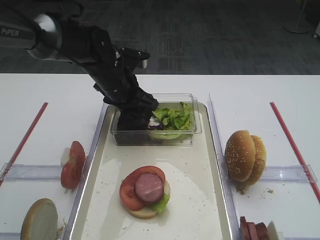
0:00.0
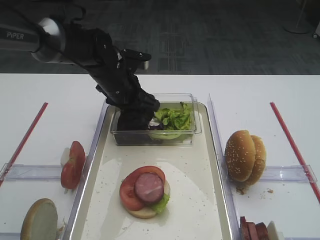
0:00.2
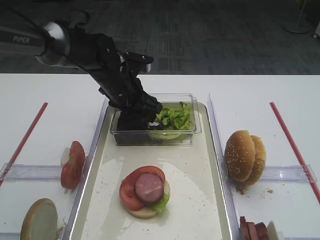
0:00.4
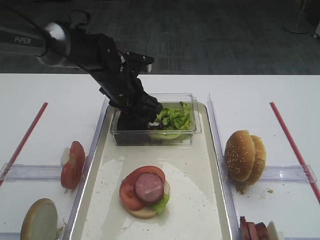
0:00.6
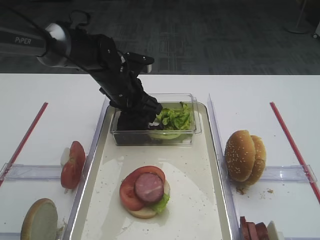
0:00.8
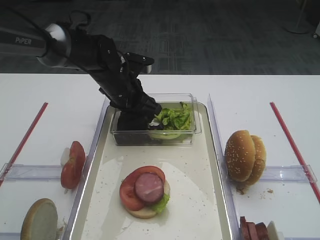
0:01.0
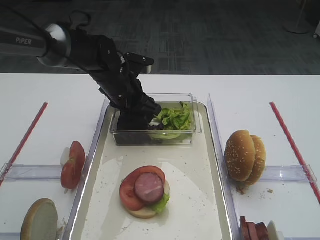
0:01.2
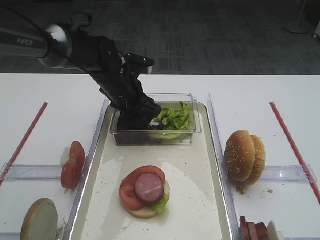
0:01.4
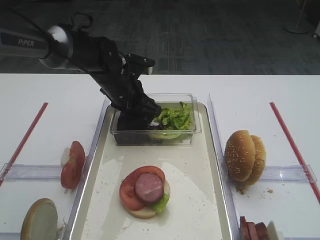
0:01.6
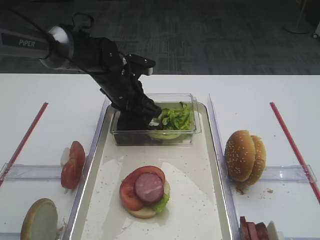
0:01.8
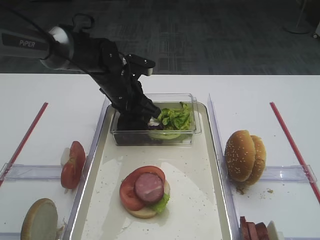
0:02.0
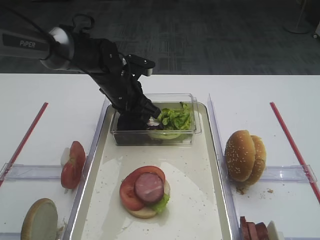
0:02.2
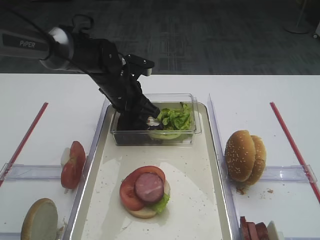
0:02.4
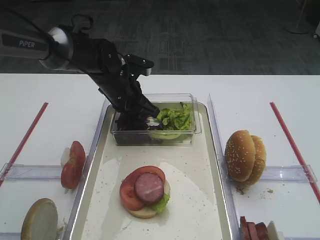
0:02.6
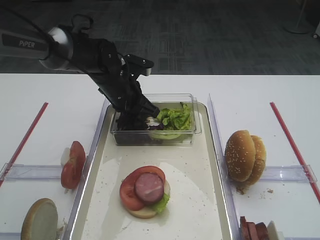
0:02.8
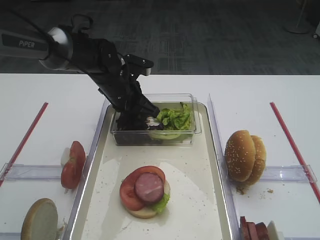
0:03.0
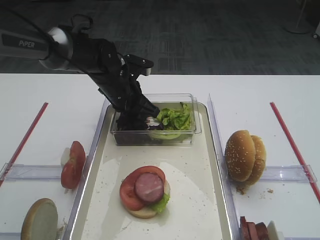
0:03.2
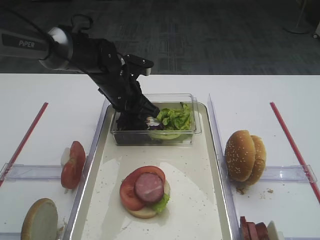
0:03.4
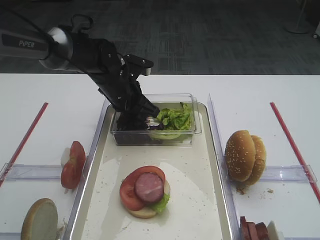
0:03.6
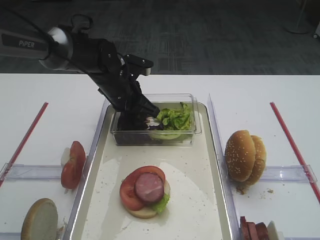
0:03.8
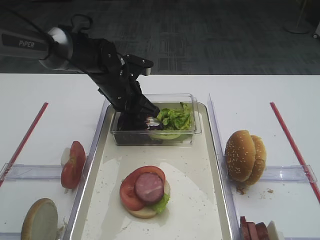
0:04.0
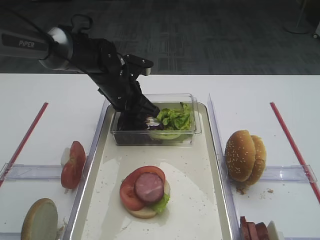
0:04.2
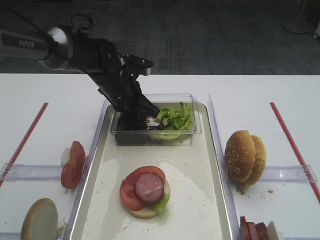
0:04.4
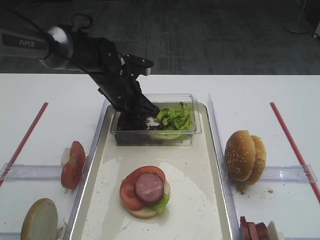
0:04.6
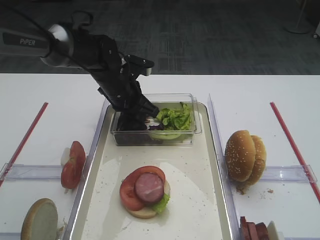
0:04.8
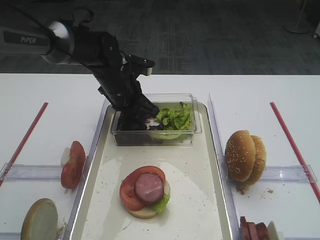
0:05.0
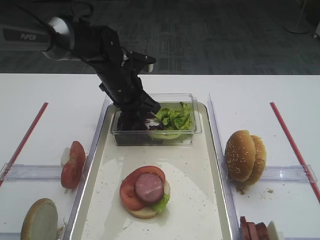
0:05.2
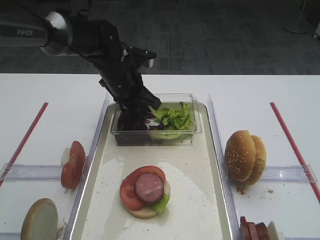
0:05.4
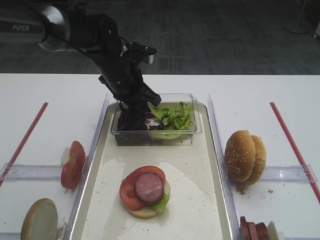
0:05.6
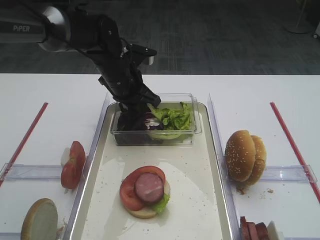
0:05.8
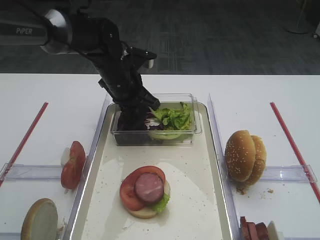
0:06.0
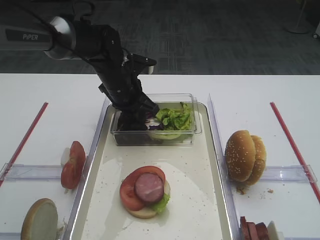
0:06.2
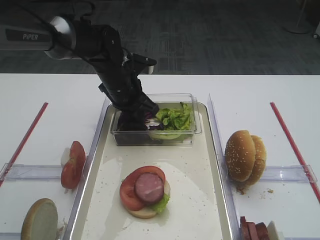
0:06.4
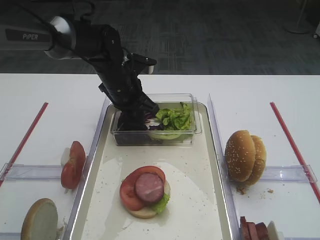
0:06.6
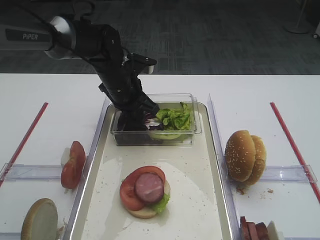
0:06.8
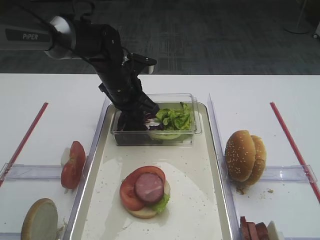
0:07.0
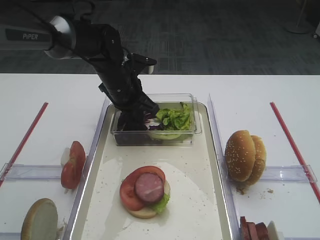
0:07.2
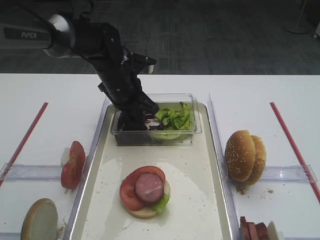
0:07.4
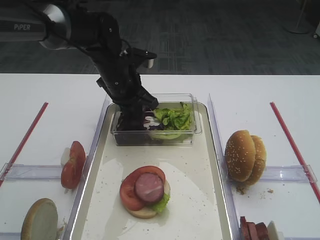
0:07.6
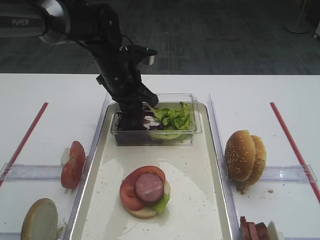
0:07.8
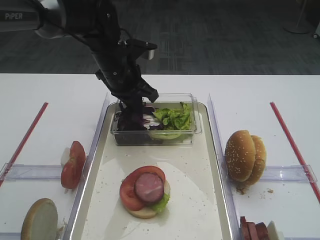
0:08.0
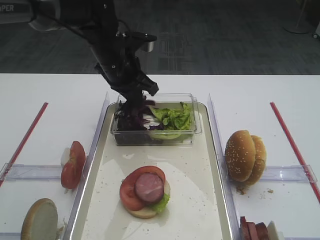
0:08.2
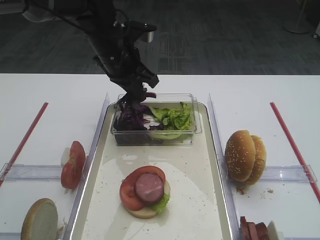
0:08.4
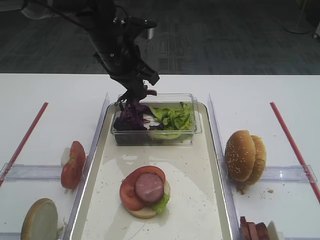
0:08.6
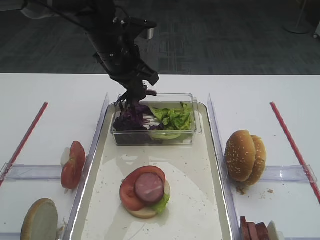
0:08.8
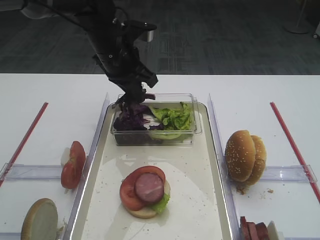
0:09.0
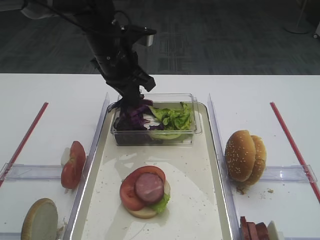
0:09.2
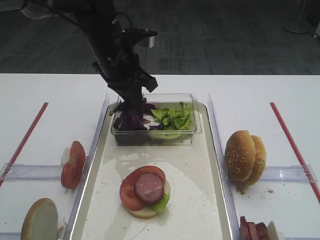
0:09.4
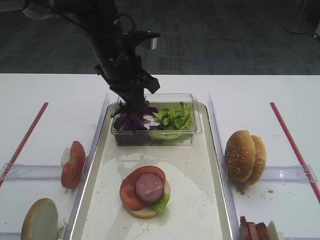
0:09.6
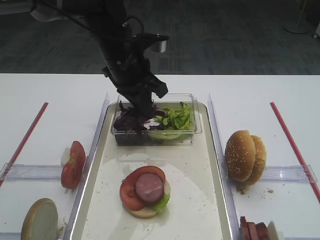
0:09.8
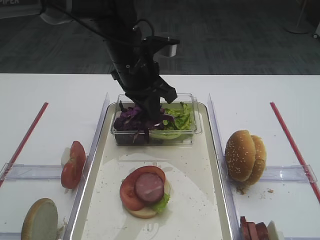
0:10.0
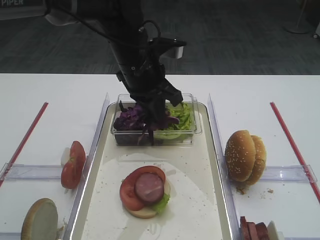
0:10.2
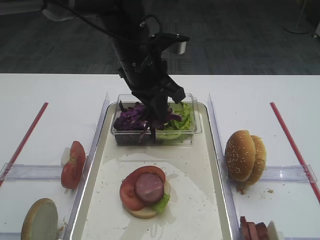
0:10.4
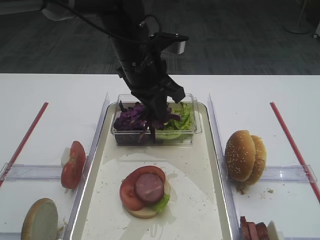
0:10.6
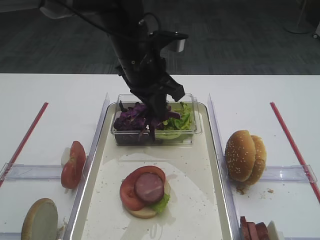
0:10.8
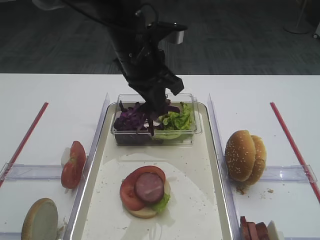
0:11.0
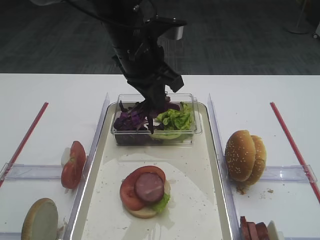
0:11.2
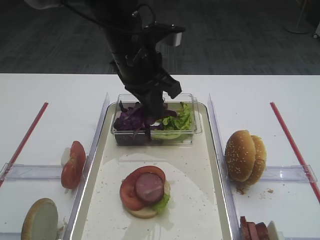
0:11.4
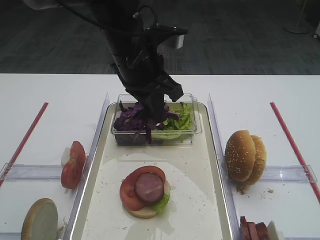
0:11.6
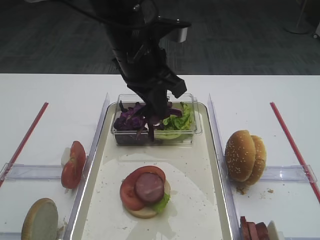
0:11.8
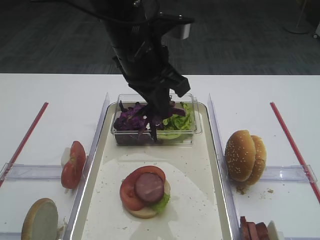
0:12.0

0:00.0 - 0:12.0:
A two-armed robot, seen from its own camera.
Step, 0:00.0 - 0:08.4: Pick up the purple cabbage with the left gripper.
0:00.0 - 0:01.6: The grippers move only a little.
0:01.6 - 0:04.4: Both grippers stay about where they are.
0:04.4 - 0:06.0: There are only small adjustments of the grippers.
0:07.6 - 0:09.0: The left gripper shifts about 5 cm upward.
0:09.0 - 0:10.4: The left gripper ends up approximately 5 cm from where it was.
0:10.4 - 0:12.0: The left gripper ends up about 5 cm from where it was.

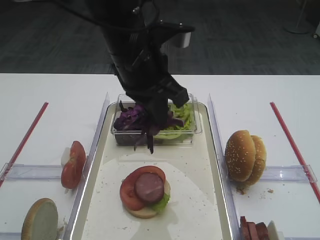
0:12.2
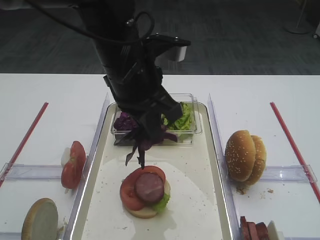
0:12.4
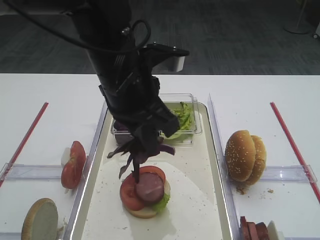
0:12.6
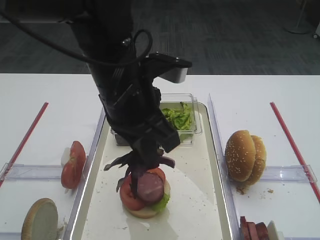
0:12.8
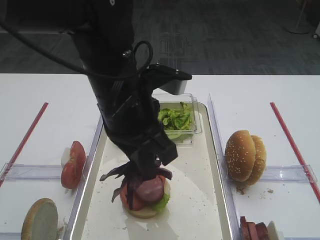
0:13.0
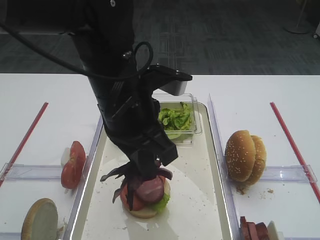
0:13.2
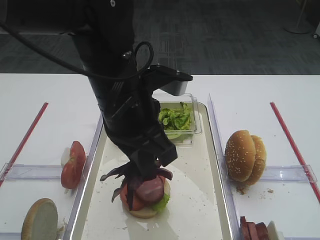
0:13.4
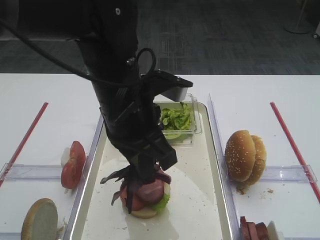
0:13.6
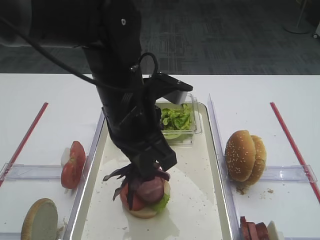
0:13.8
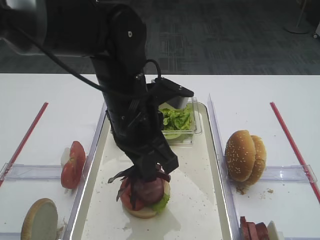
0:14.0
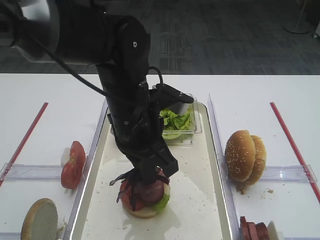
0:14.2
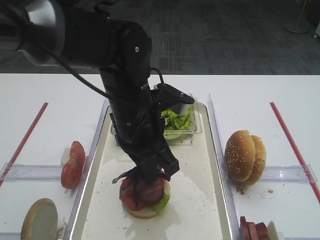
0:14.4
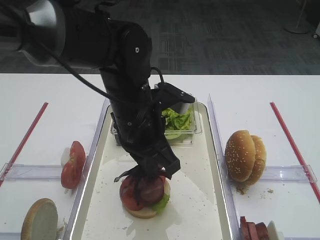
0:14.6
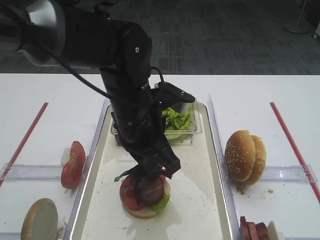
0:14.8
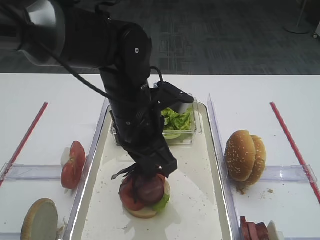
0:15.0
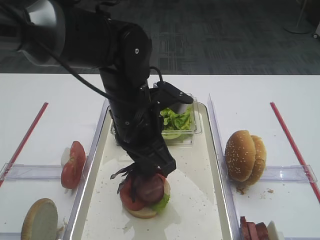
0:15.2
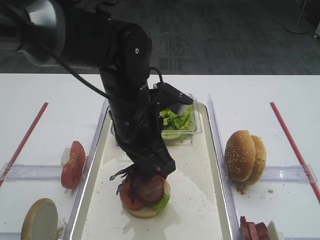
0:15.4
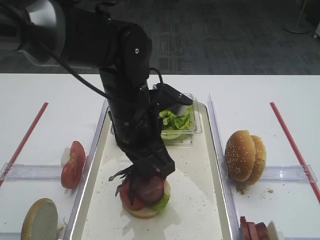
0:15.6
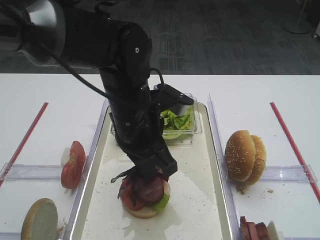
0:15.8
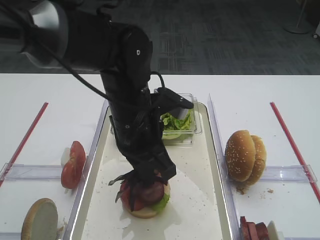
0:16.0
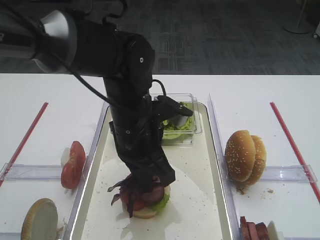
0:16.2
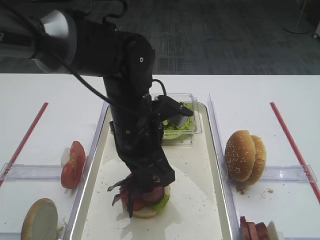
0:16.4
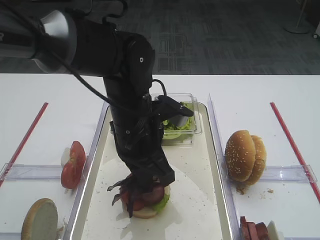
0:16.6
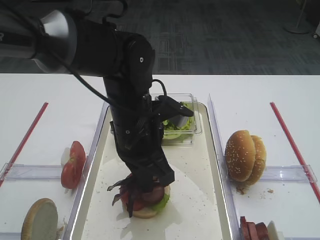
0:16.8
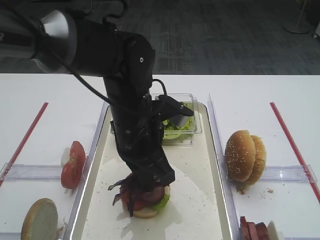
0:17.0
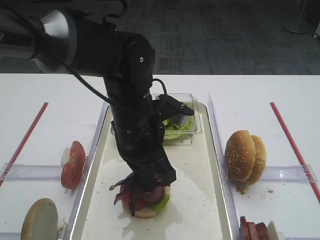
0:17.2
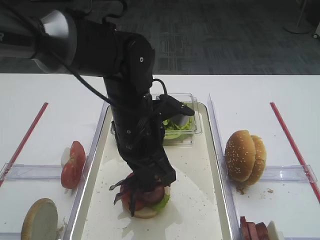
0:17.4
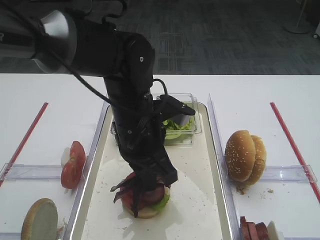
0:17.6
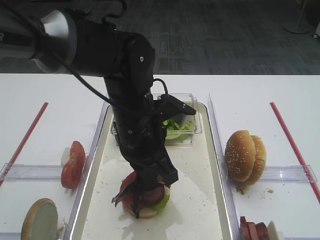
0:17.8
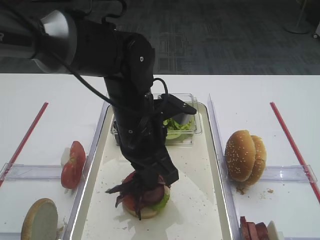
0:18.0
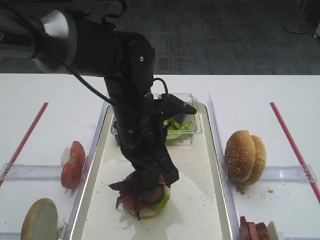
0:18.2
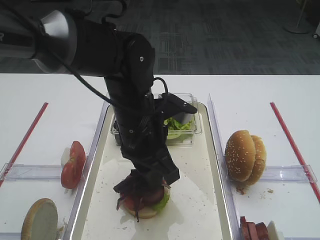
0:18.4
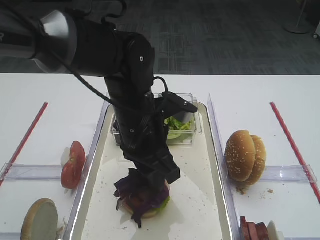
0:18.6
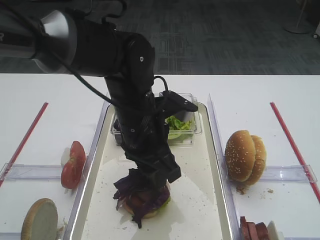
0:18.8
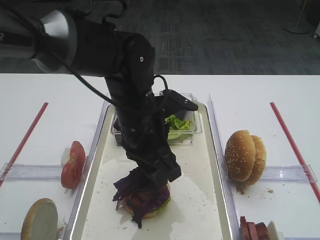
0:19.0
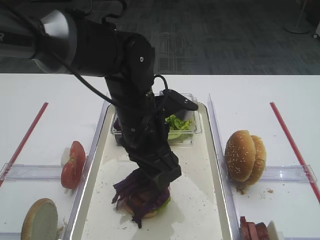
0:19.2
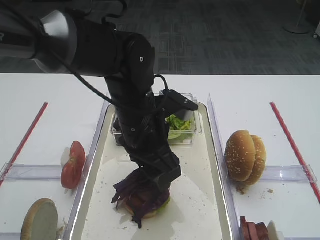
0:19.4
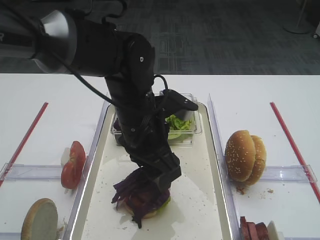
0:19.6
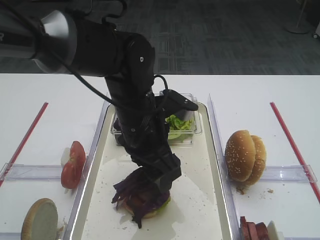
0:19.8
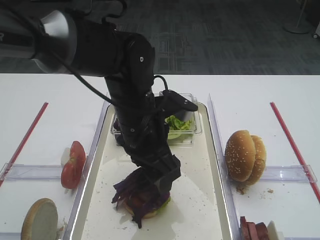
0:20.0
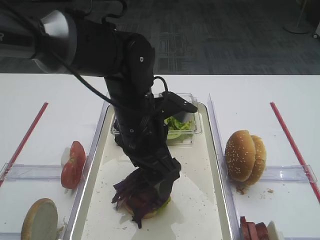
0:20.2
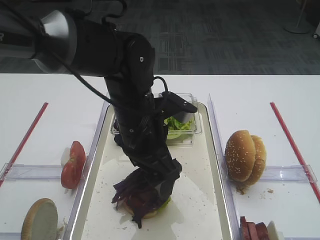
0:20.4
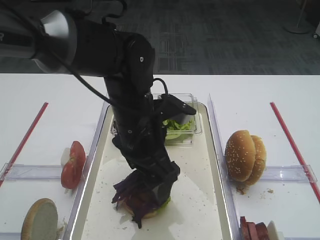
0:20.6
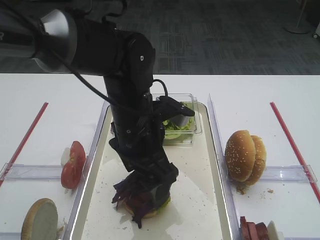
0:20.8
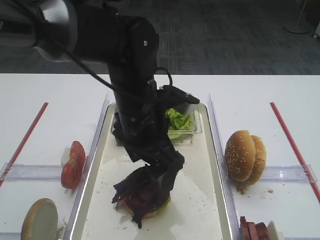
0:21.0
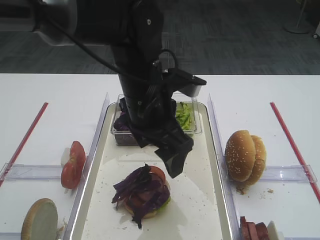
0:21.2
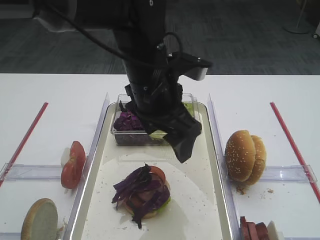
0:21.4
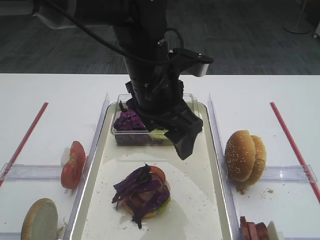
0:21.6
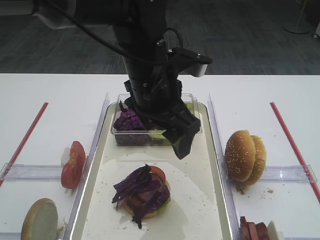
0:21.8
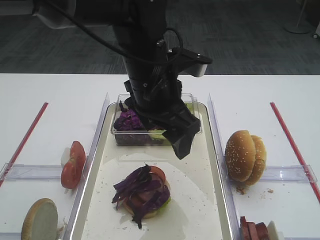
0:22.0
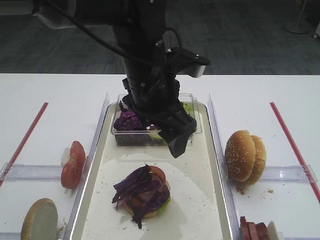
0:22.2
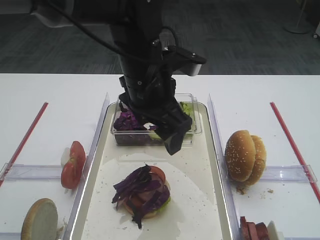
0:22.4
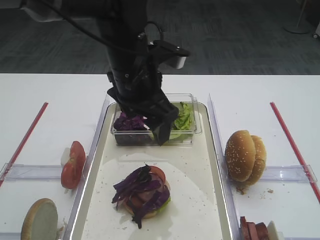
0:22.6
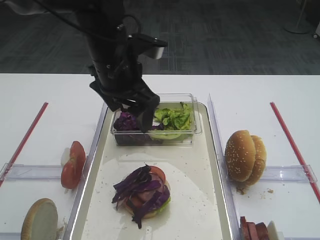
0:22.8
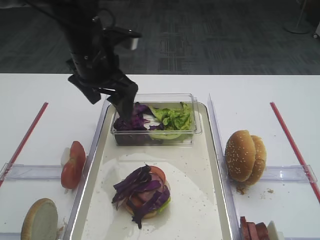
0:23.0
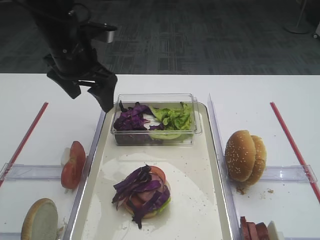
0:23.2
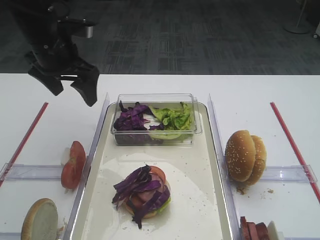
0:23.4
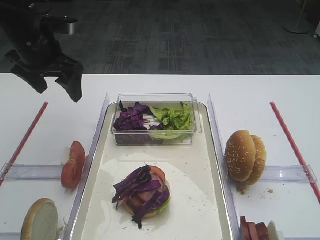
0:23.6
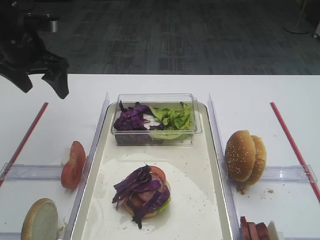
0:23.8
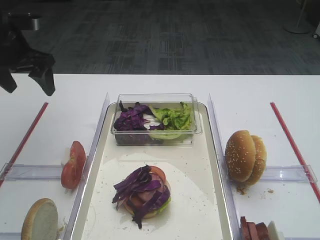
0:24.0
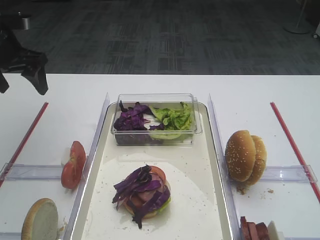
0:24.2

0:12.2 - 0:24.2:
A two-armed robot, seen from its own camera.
Step, 0:12.2 - 0:21.0: Place the purple cabbage on the cutlet with the left gripper.
0:12.2 - 0:13.8: The left gripper travels backward by roughly 5 cm.
0:13.8 - 0:16.6: The grippers stay close to where they were, moving slightly.
0:16.6 - 0:18.2: Neither gripper changes place.
0:18.2 - 0:19.8: The left gripper opens up.
0:19.8 - 0:21.2: The grippers stay close to where they were, moving slightly.
0:21.2 - 0:22.6: The grippers move only a little.
0:22.6 - 0:24.2: The left gripper is displaced to the left by roughly 25 cm.
